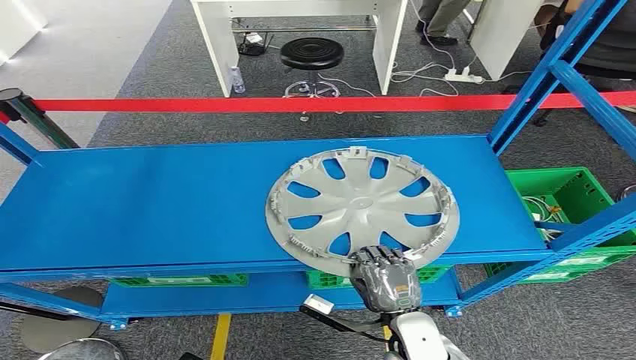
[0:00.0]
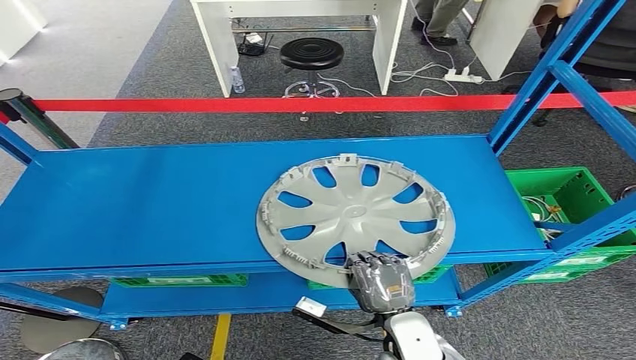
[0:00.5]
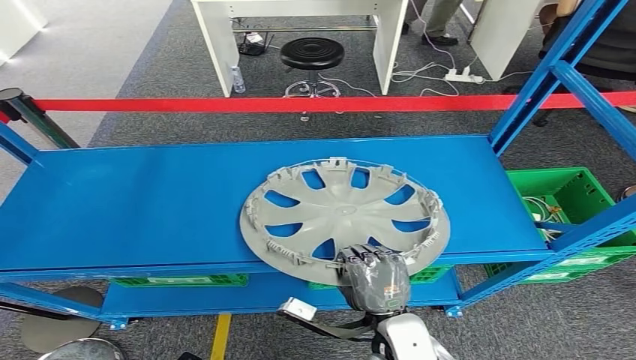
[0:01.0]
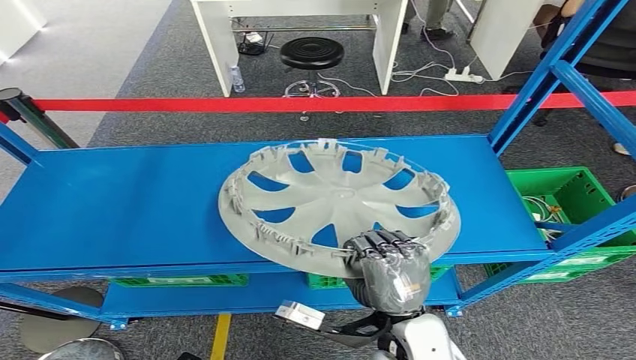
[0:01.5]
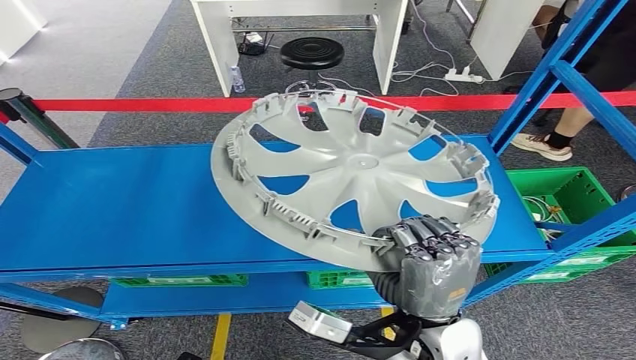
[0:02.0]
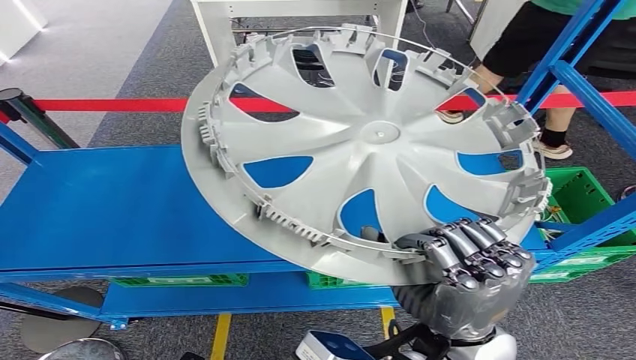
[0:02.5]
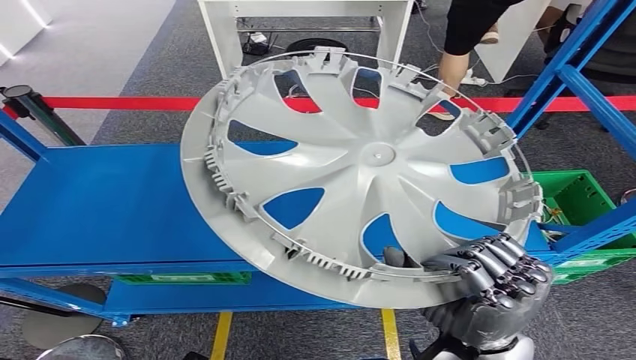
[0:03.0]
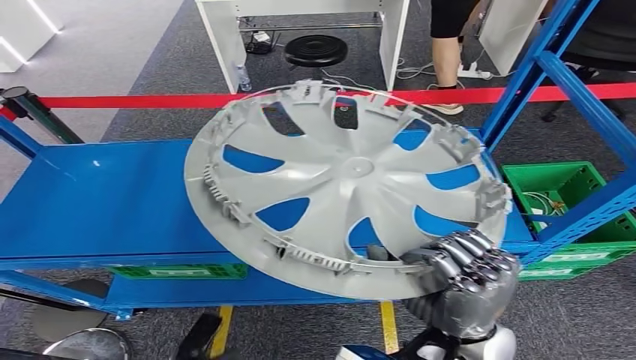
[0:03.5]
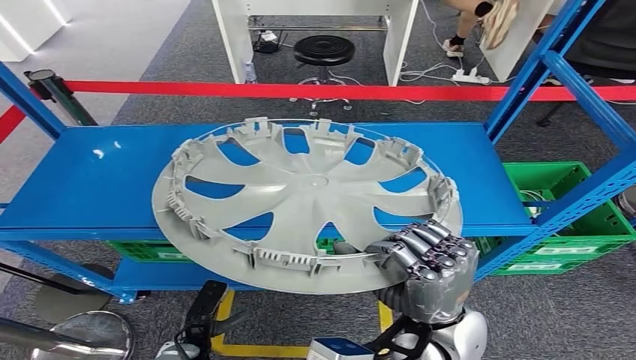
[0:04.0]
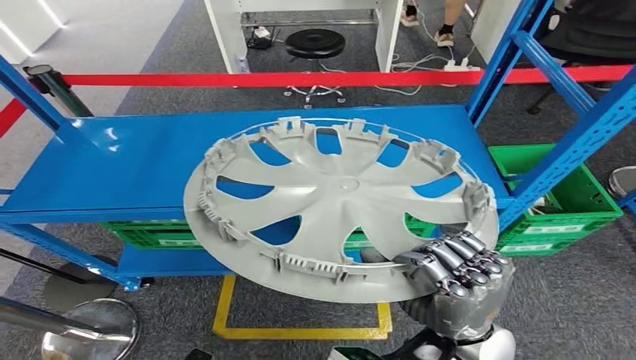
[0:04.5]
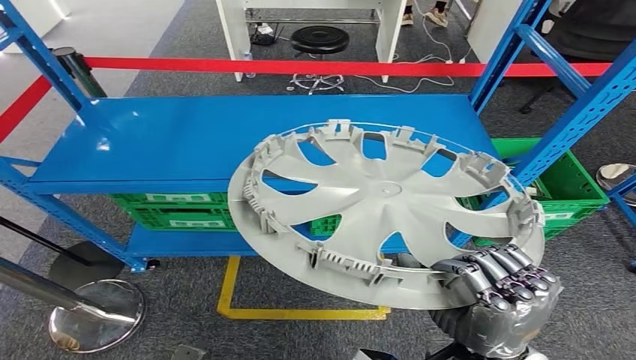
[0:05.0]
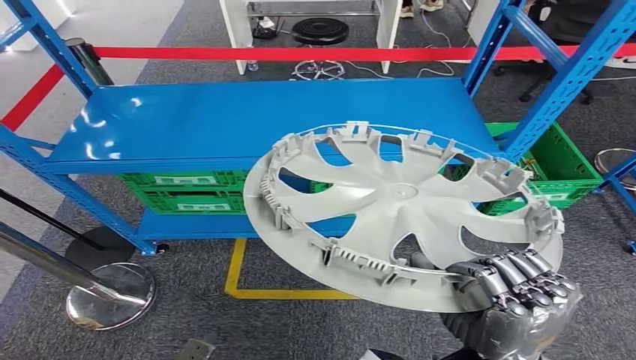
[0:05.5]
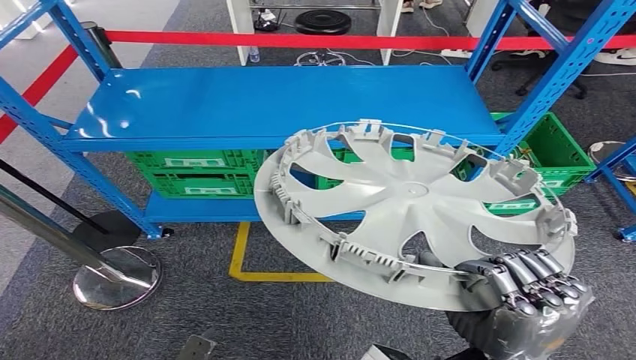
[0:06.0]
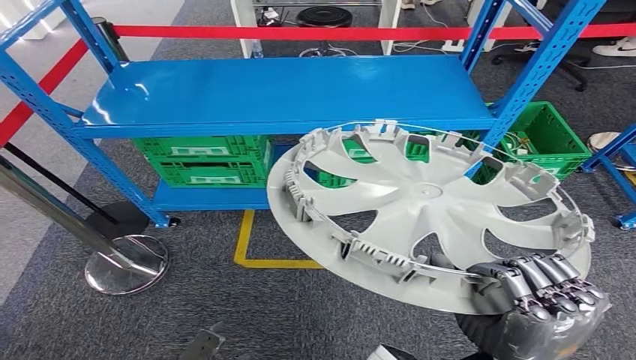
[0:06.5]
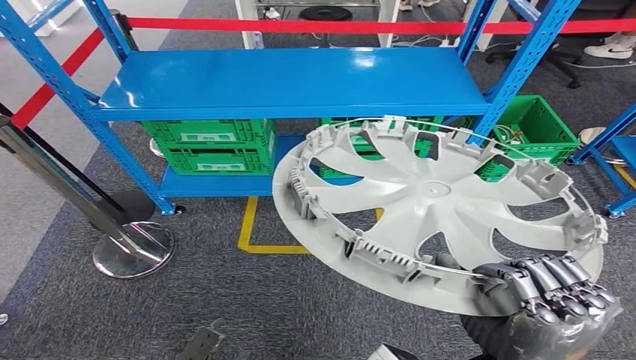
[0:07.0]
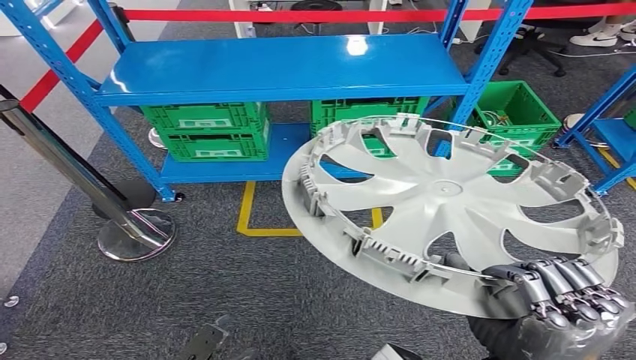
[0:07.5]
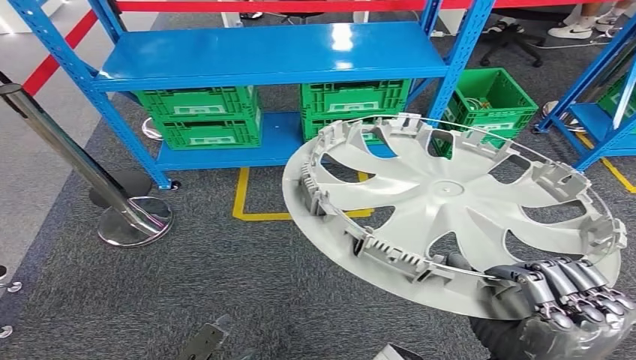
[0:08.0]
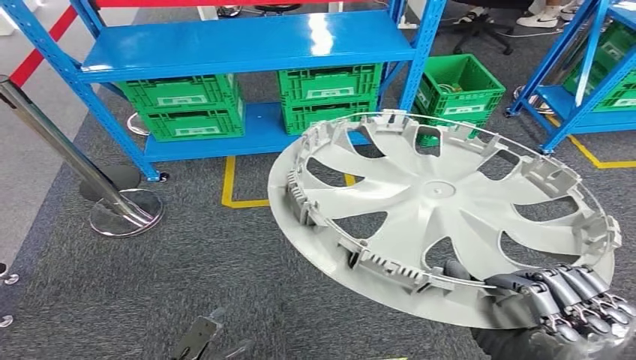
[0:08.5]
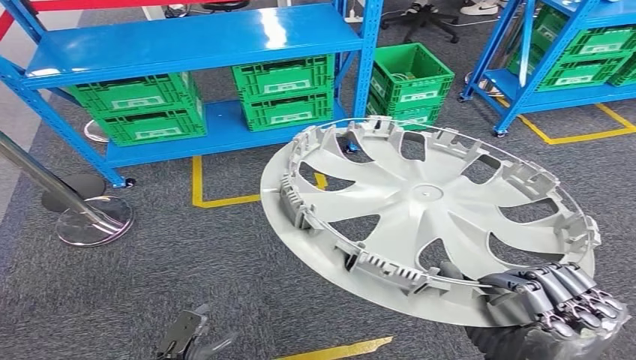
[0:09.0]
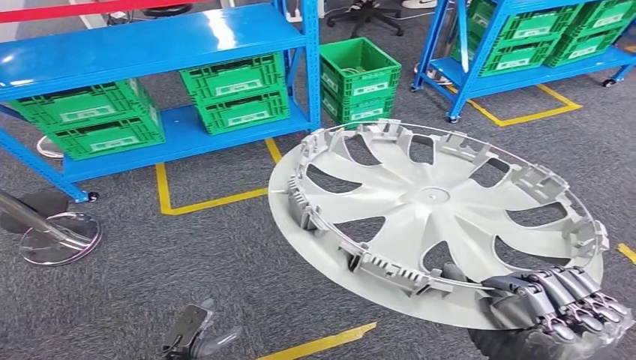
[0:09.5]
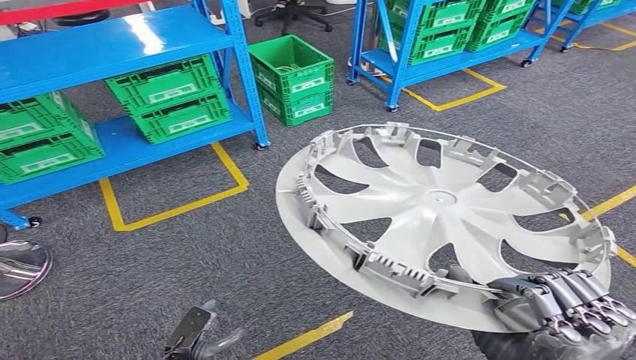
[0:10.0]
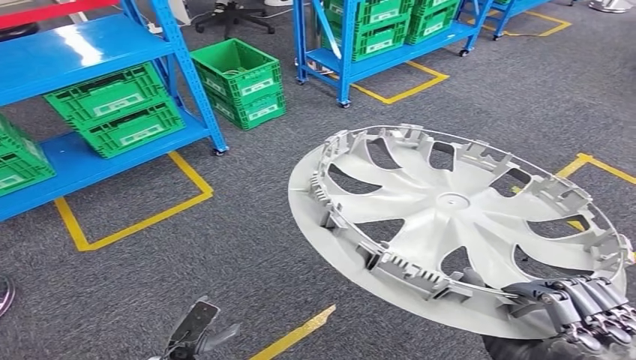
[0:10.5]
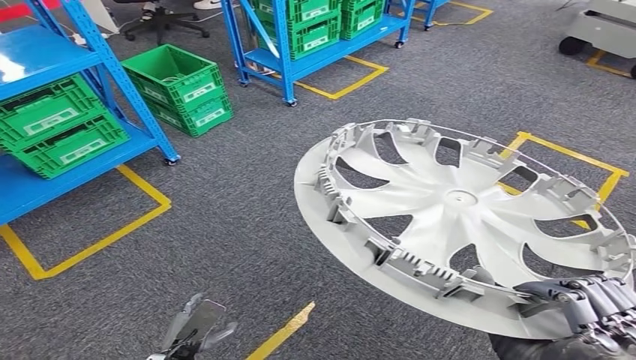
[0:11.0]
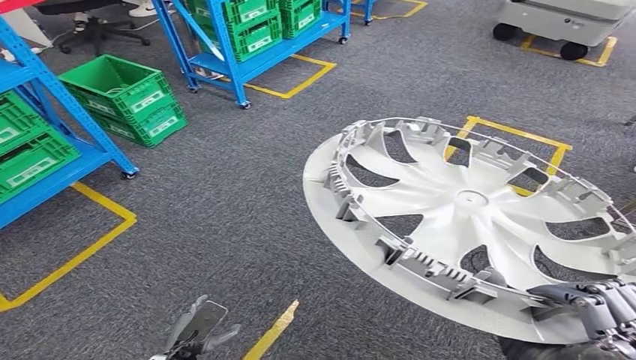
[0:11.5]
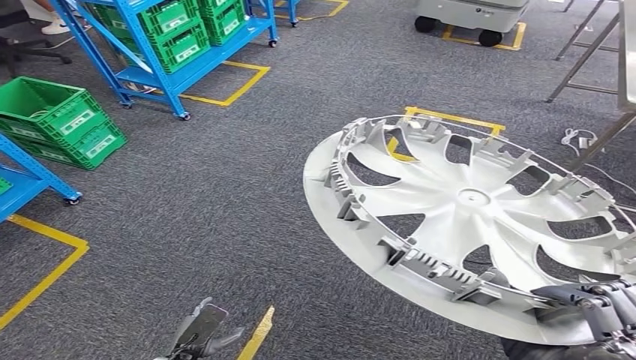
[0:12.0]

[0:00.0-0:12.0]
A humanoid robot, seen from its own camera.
Step, 0:00.0 to 0:05.0: Pick up the small component from the shelf.

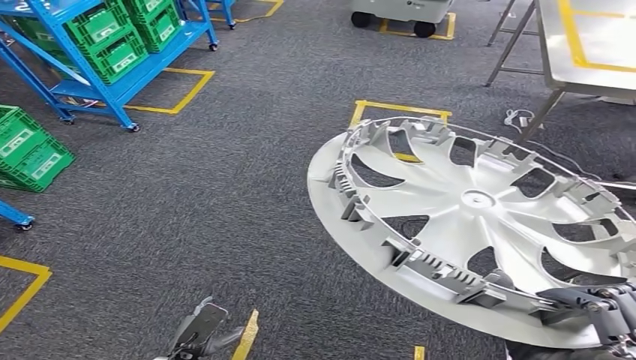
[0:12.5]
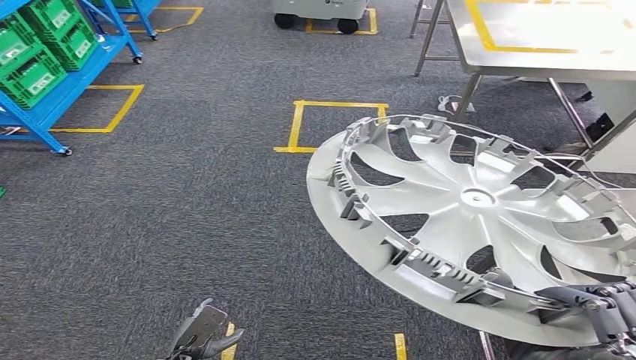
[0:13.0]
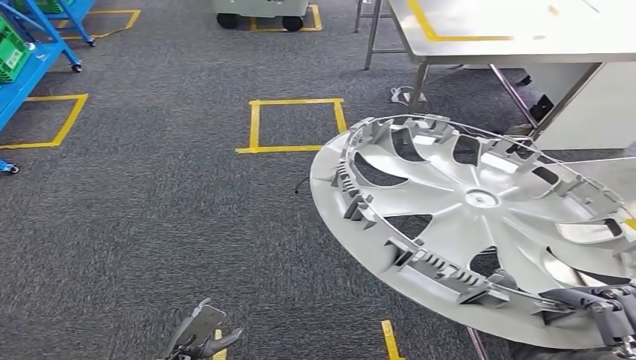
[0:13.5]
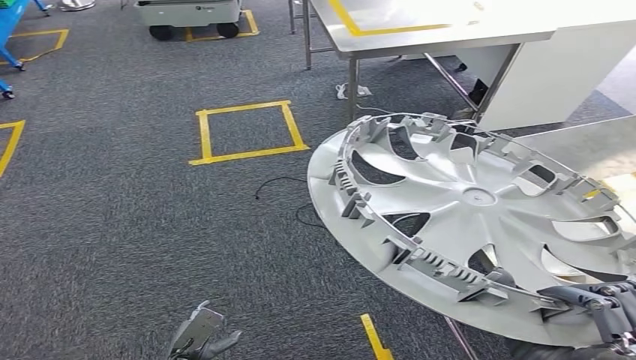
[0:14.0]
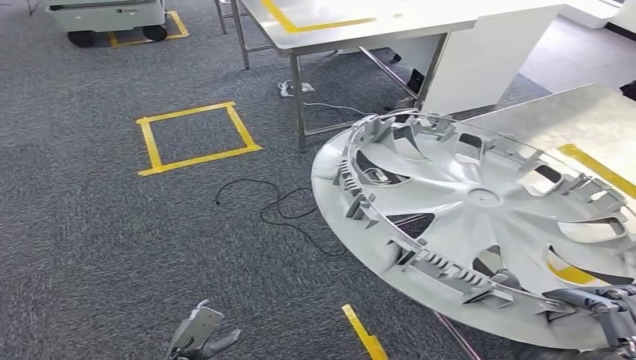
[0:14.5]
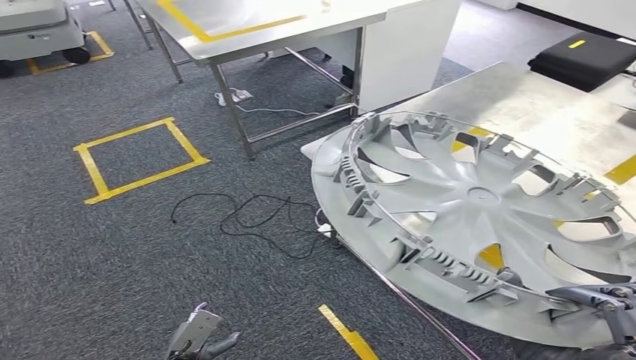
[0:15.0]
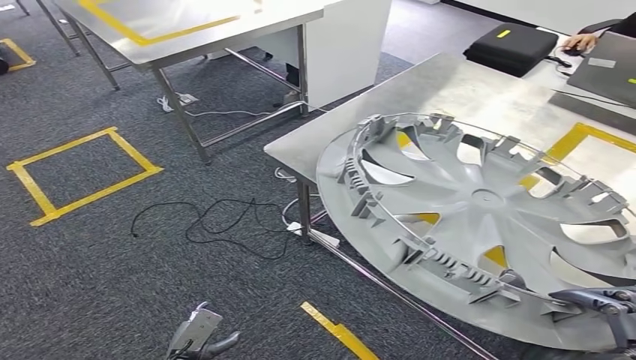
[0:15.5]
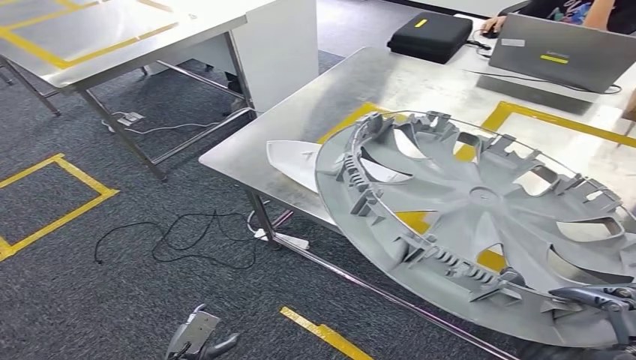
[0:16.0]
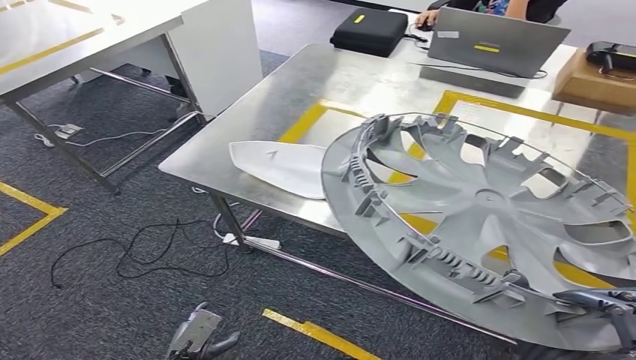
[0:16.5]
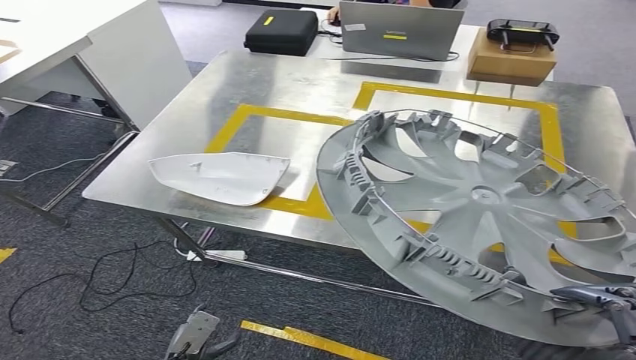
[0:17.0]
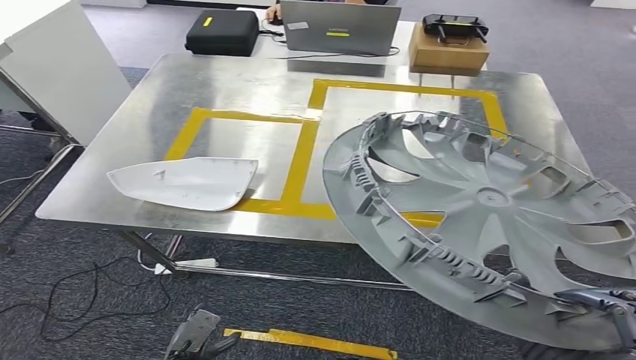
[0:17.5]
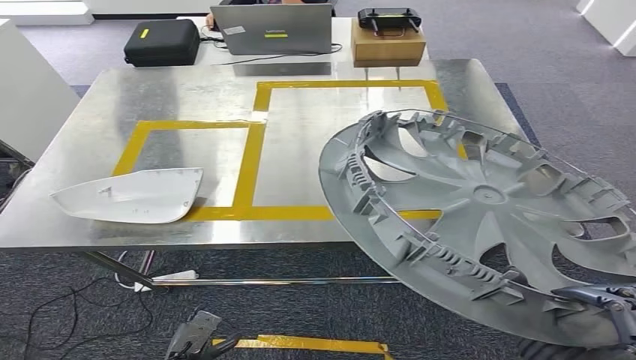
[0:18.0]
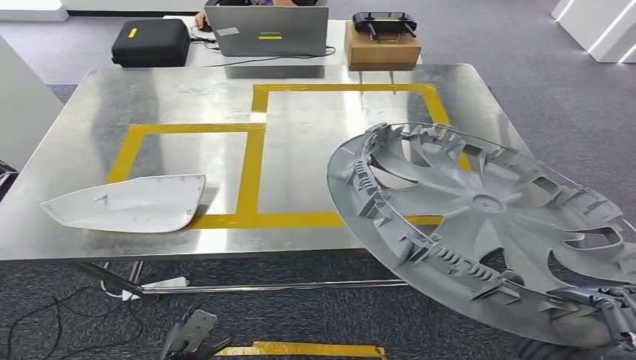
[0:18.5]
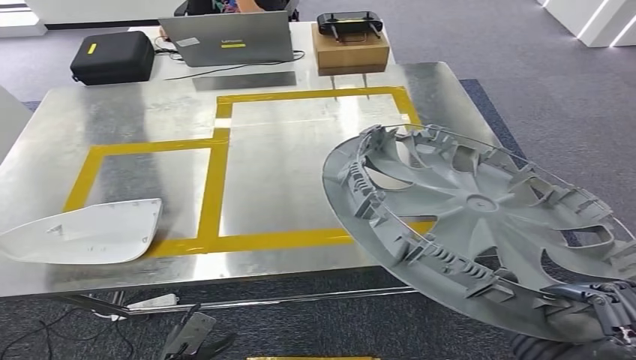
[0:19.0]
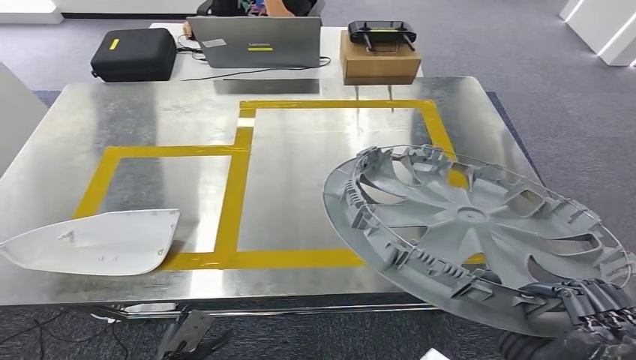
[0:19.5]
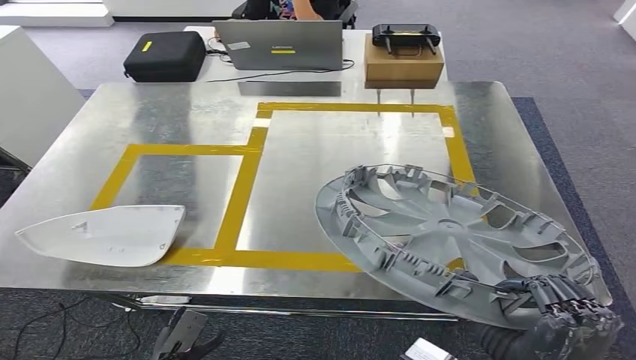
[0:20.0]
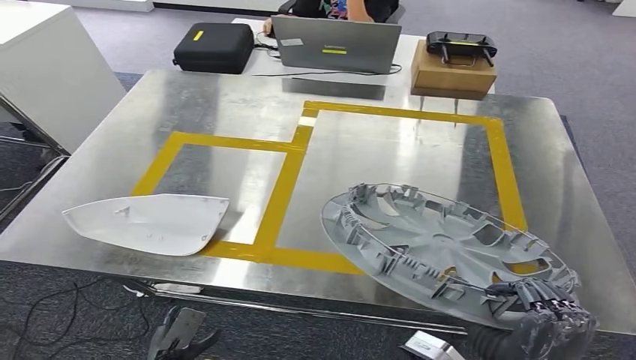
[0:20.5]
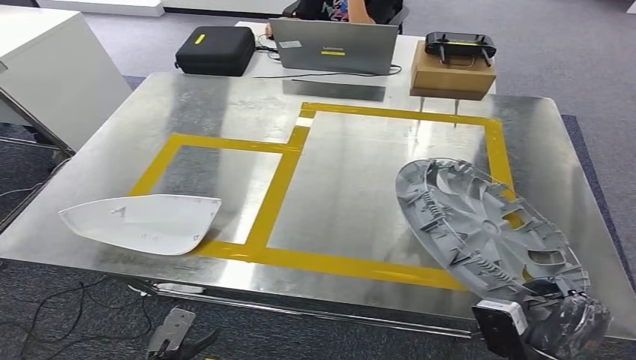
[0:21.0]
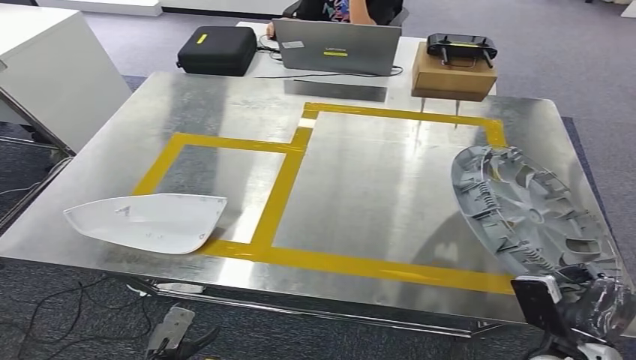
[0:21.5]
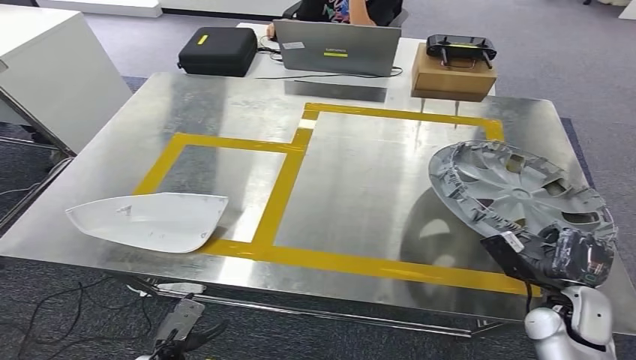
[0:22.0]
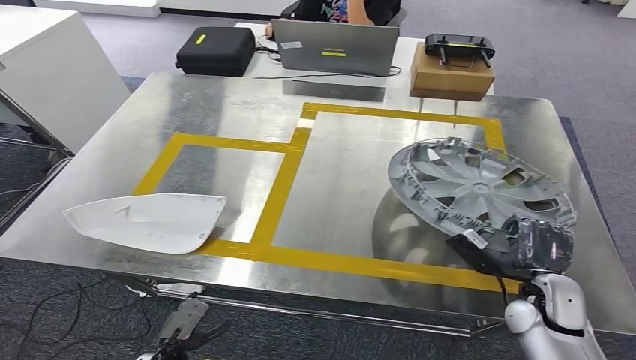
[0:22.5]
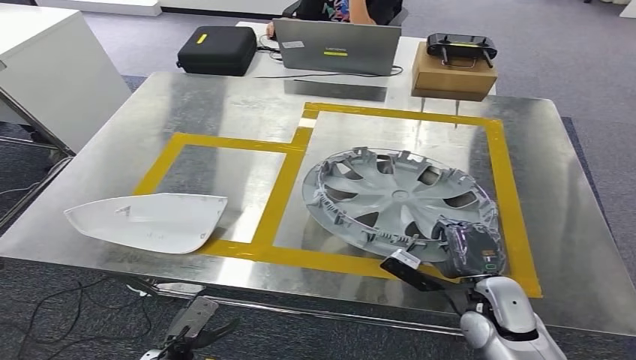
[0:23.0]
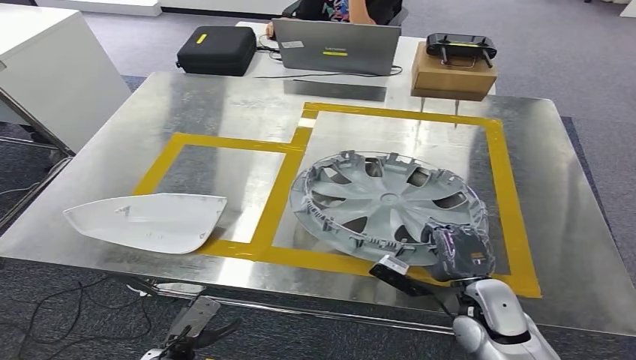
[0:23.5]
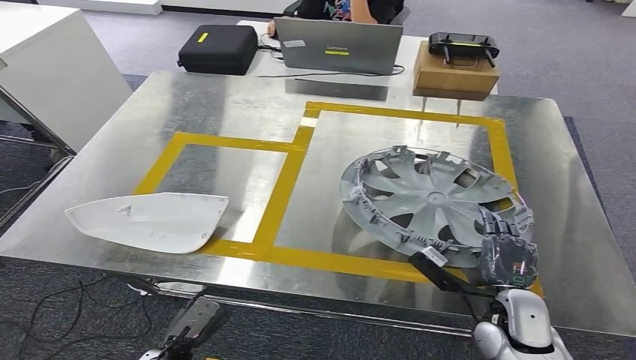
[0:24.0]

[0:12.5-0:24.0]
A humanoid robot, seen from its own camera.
Step, 0:12.5 to 0:19.5: Move the small component to the workbench.
